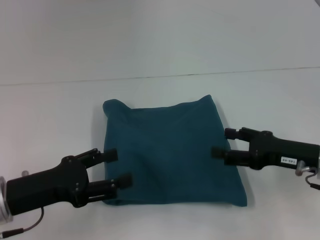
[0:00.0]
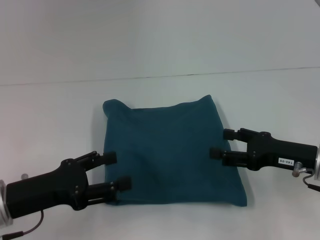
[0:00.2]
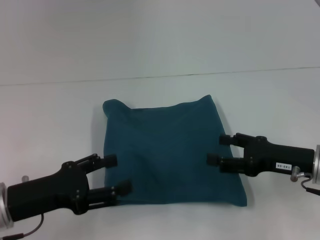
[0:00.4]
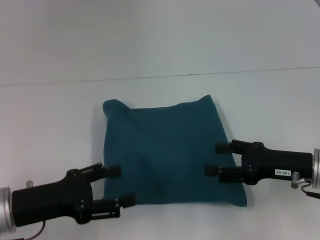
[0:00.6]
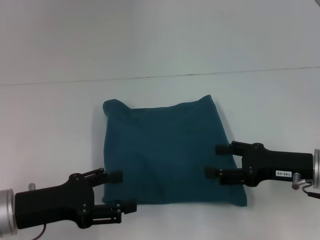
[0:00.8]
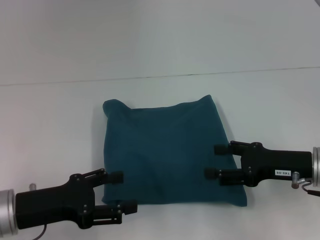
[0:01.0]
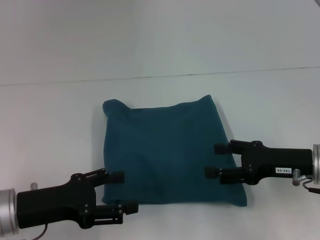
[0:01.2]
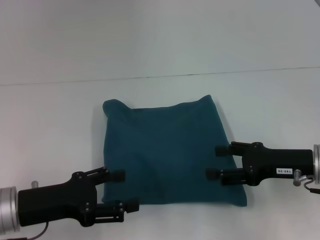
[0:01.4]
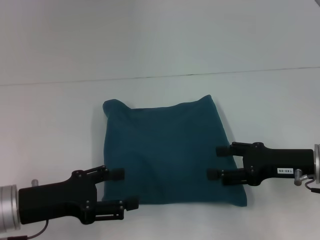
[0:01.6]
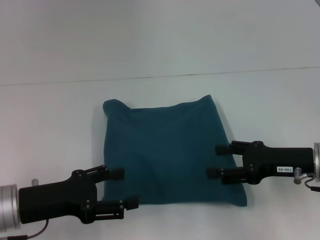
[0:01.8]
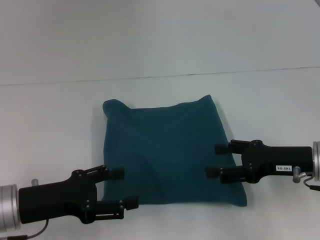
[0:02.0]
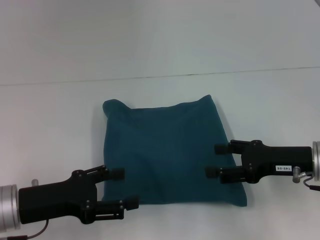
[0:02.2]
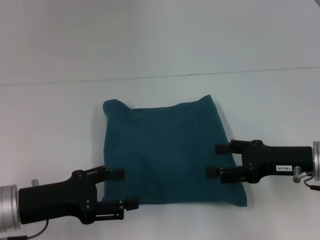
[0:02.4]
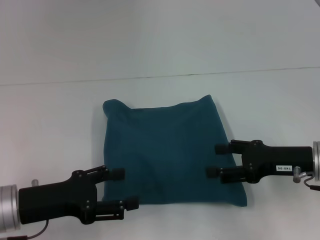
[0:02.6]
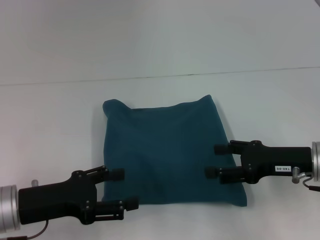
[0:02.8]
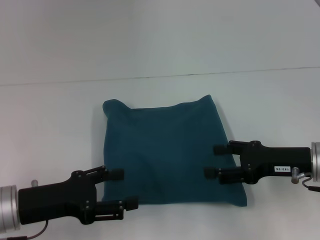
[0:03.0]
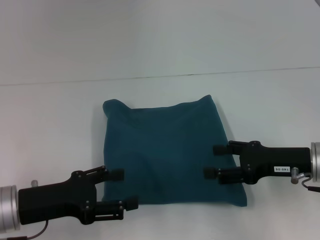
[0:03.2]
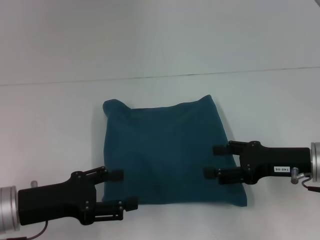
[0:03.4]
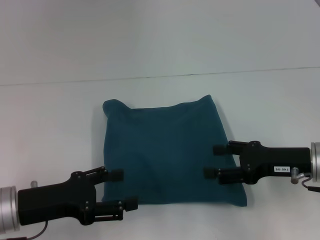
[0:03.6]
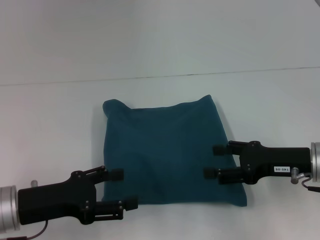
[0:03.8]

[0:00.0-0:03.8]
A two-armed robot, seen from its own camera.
0:00.0 to 0:01.2: The grippers move only a little.
0:01.2 to 0:03.8: Both grippers stay about where they are.

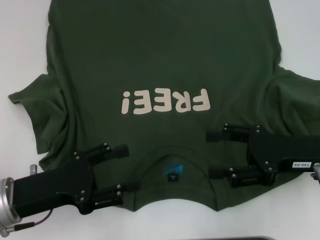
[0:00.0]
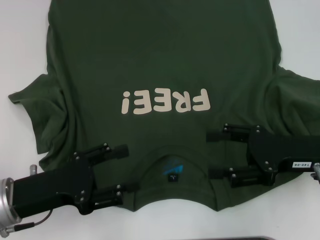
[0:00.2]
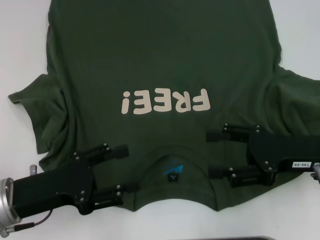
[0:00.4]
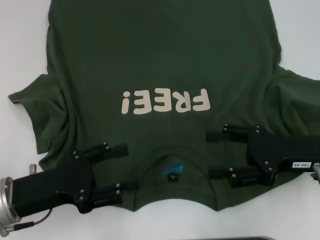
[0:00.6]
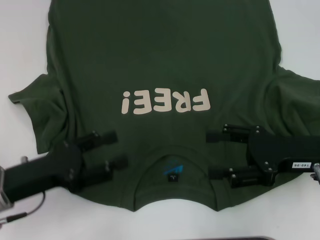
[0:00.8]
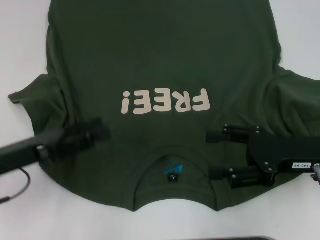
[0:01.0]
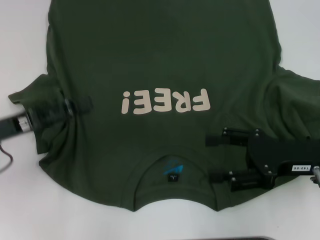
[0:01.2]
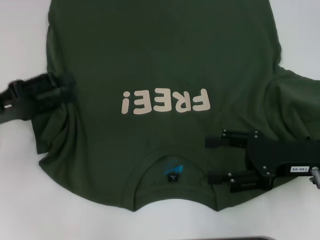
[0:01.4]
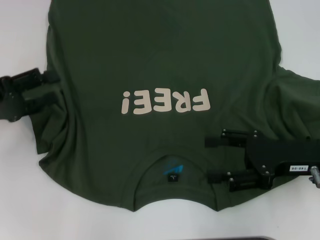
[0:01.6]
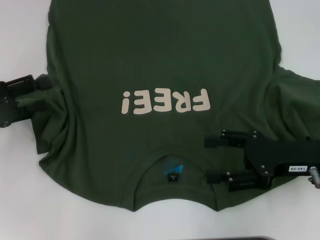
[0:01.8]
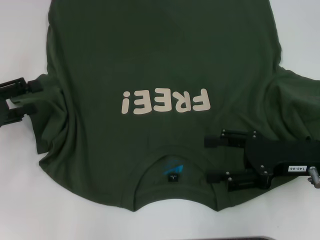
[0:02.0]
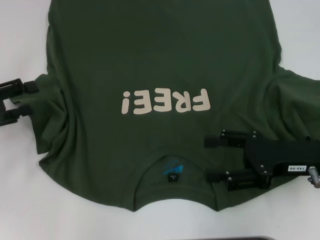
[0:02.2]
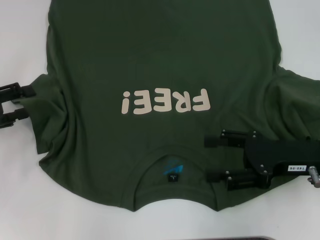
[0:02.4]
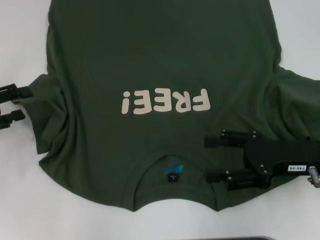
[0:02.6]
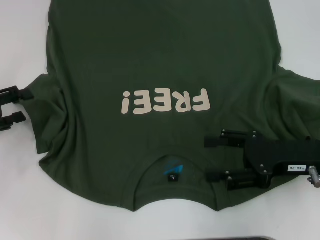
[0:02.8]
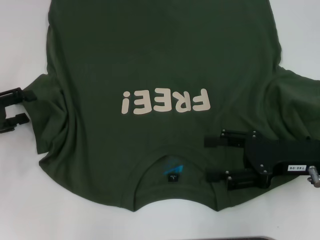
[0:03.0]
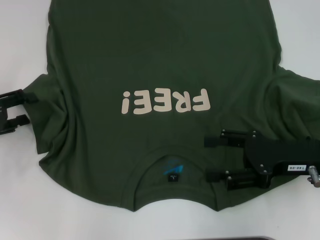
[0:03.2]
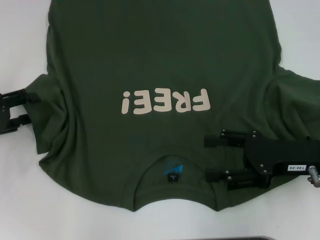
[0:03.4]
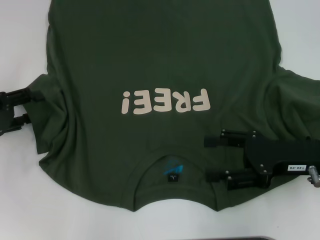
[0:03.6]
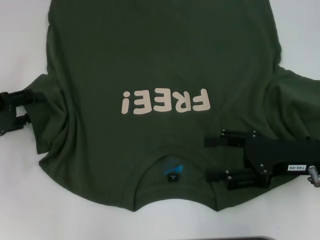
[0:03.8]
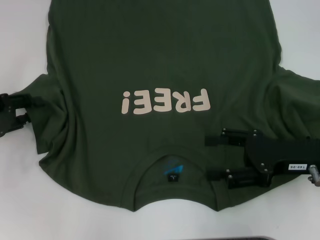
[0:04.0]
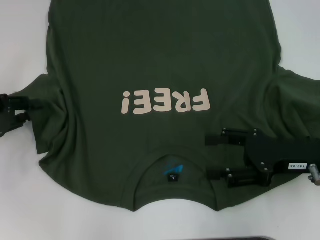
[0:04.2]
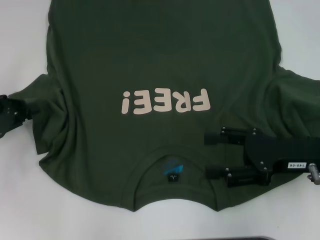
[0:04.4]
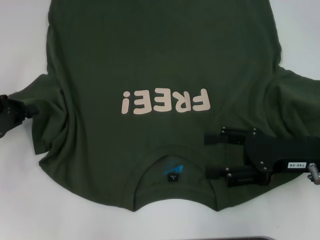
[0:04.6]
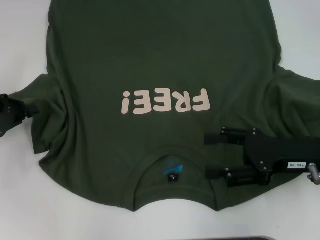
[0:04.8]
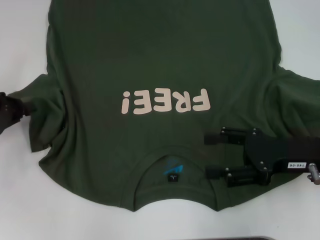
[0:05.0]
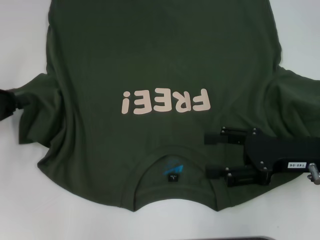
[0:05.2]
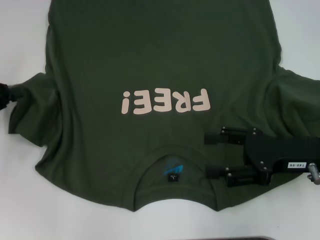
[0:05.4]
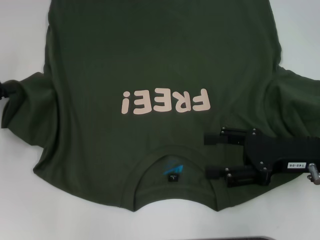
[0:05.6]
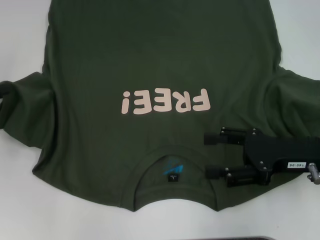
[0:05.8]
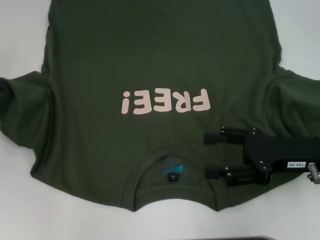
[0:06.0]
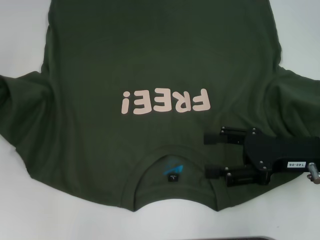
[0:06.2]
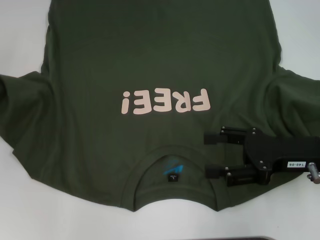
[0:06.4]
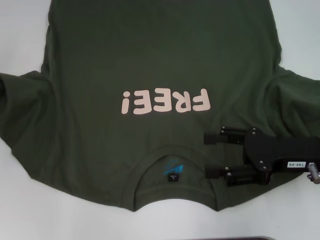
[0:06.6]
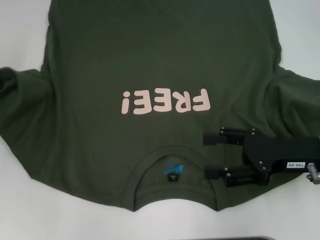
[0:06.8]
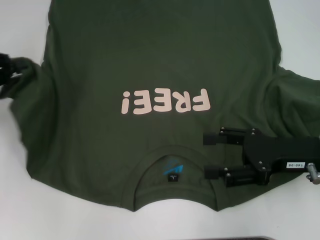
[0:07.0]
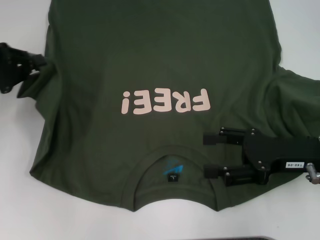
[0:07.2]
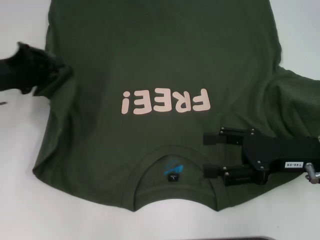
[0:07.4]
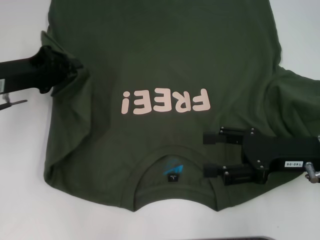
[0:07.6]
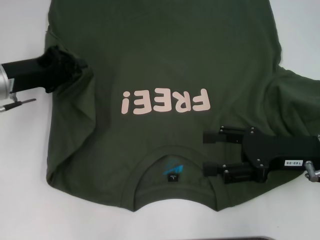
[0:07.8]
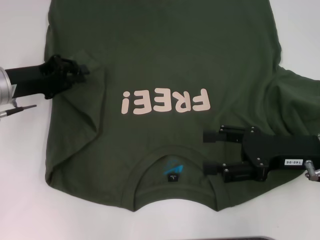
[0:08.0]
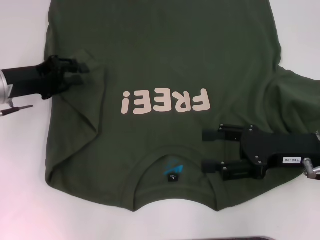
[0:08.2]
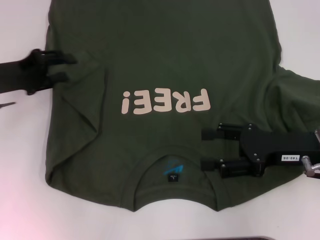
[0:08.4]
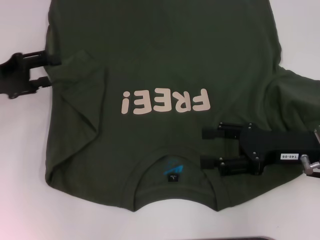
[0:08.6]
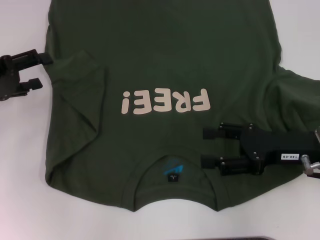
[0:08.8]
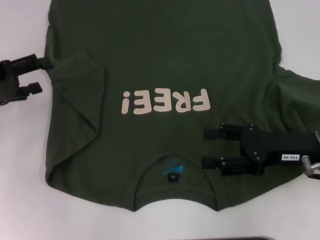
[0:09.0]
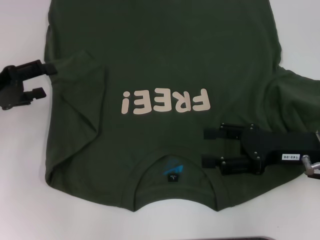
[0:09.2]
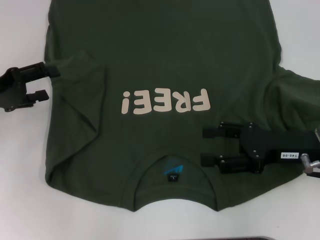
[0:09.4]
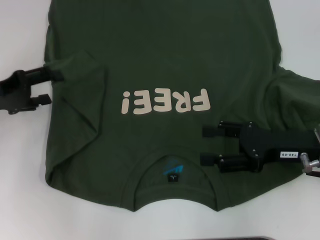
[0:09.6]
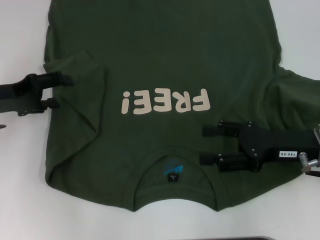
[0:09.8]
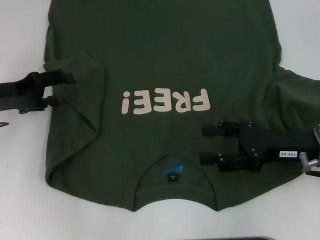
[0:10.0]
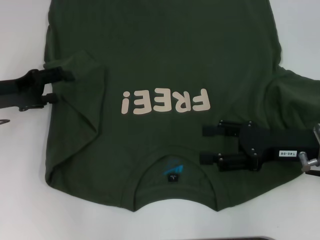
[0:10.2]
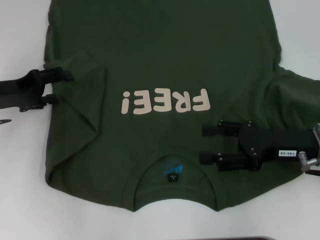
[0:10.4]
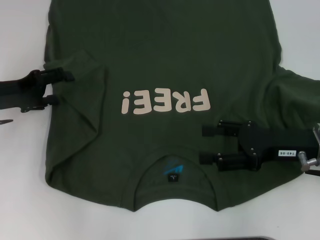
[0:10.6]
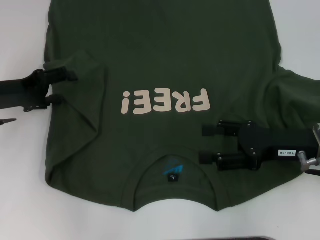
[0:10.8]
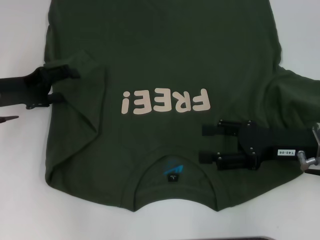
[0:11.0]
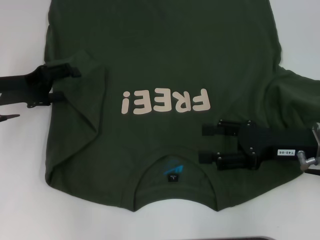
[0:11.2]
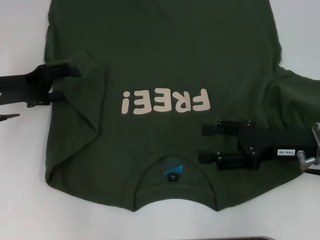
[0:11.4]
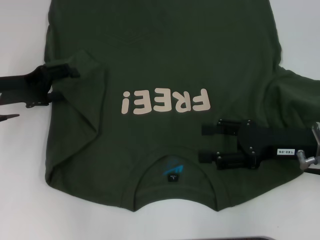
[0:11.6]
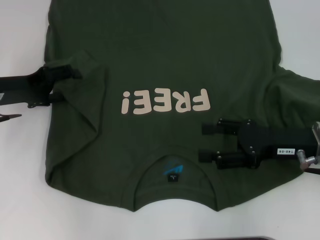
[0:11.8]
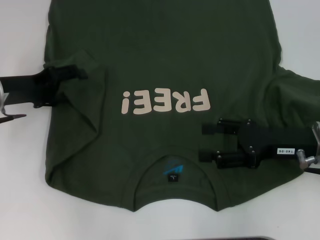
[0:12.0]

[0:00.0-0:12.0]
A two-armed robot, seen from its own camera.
0:00.0 to 0:01.6: The left gripper moves to the left and forward, roughly 10 cm.
0:03.0 to 0:04.4: The left gripper closes up.
0:04.4 to 0:06.0: The left gripper ends up roughly 5 cm from where it was.
0:06.0 to 0:07.6: The left gripper goes some 10 cm to the right.
0:07.6 to 0:09.0: The left gripper travels to the left by some 5 cm, and opens.
0:09.0 to 0:10.4: The grippers move only a little.
0:10.4 to 0:12.0: The grippers make only small movements.

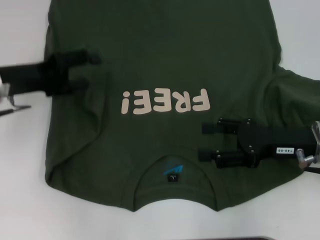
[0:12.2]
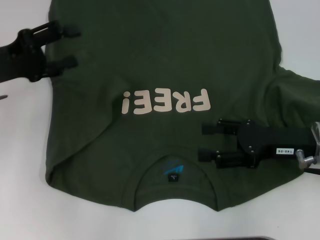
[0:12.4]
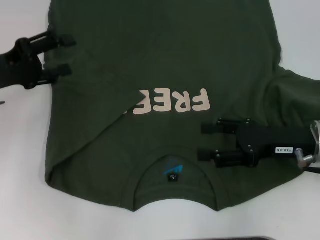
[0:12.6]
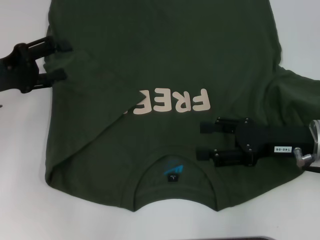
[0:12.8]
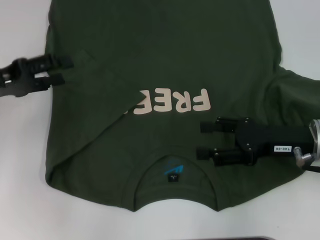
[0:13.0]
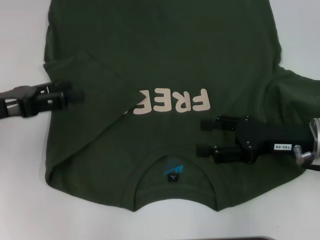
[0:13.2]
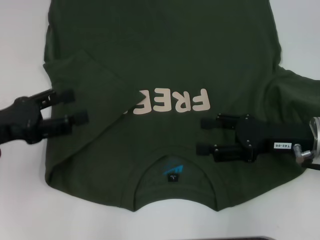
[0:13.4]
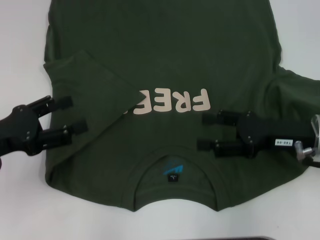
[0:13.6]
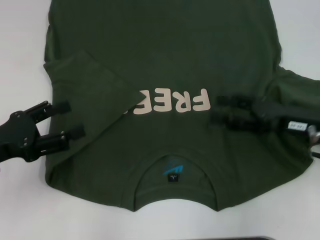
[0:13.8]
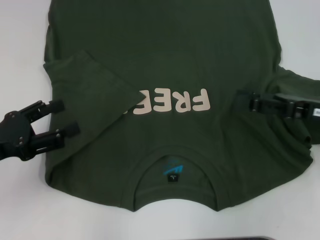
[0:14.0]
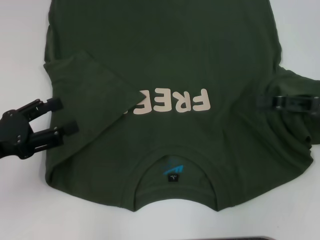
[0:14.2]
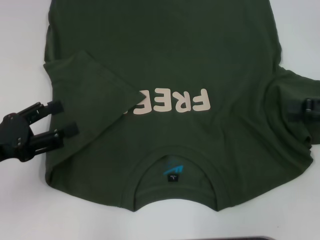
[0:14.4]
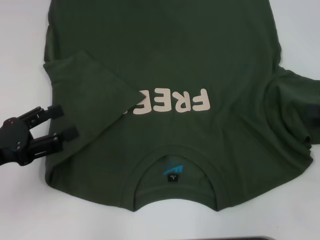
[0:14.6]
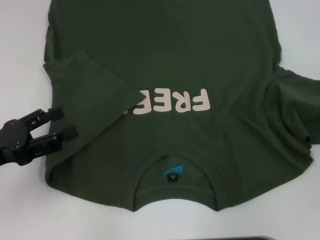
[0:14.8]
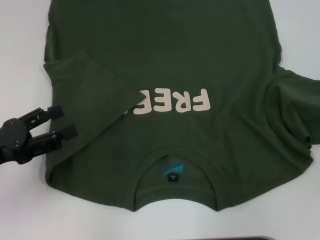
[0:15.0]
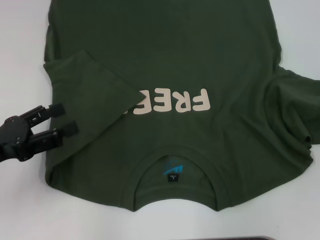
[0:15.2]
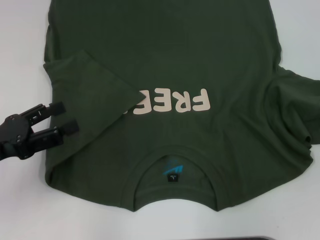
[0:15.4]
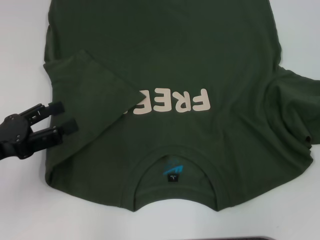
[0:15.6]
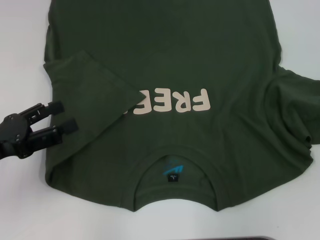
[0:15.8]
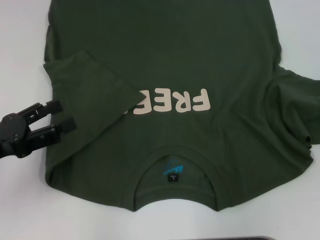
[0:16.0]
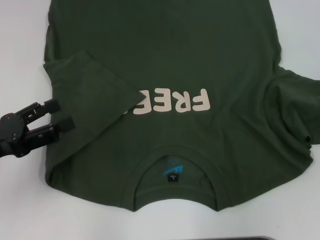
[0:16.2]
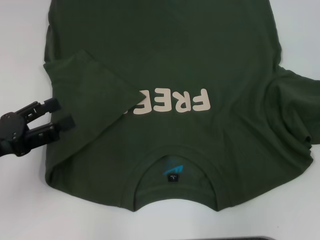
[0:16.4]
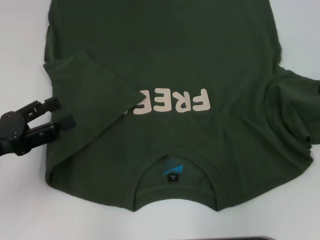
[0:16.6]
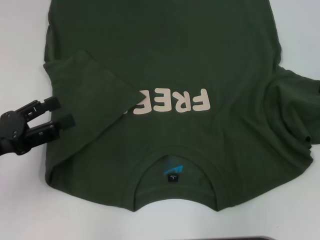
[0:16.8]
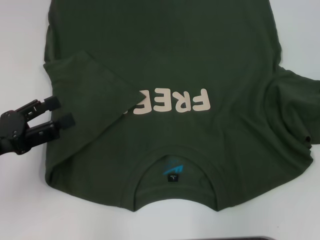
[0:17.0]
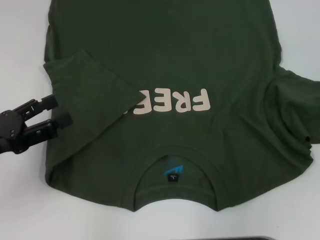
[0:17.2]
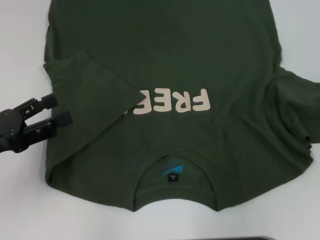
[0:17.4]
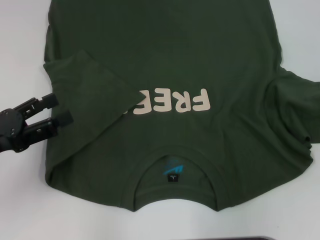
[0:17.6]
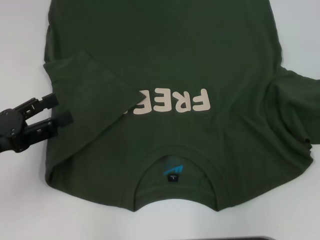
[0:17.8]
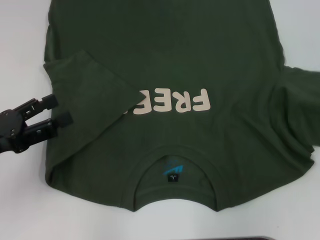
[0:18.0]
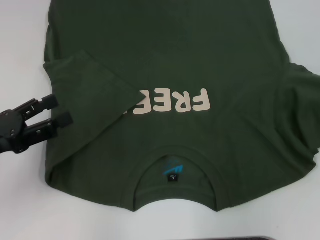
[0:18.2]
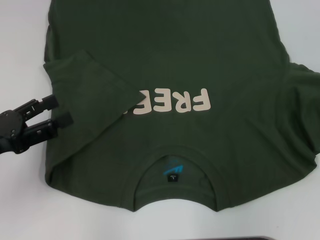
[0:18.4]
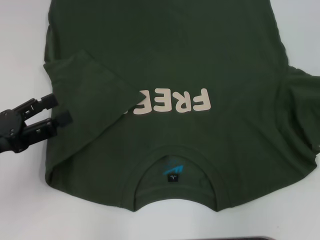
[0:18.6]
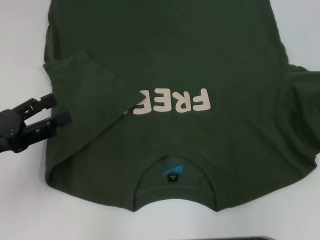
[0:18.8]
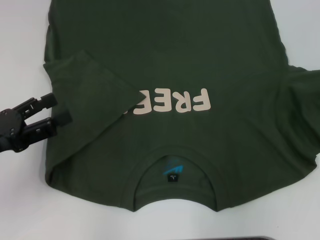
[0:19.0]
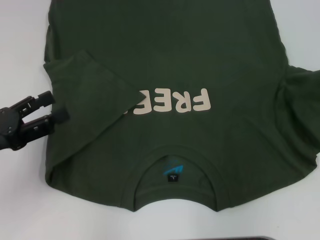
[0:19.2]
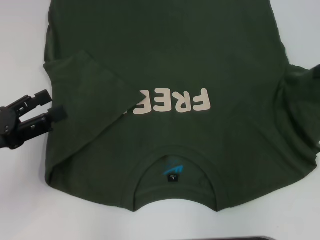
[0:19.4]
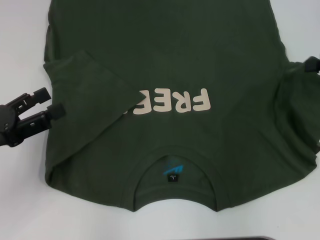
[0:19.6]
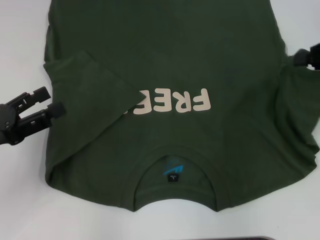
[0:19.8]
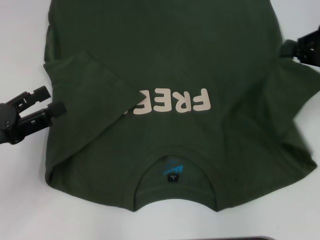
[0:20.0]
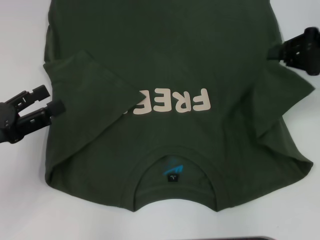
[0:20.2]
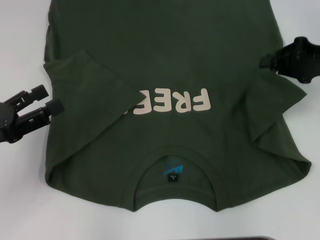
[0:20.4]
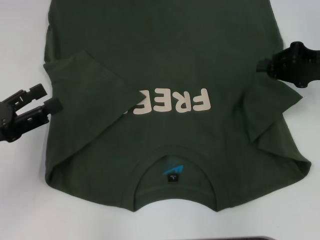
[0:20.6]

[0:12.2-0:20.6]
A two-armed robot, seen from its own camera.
Step, 0:12.2 to 0:14.2: Fold the bottom left sleeve with your left hand.
0:12.2 to 0:13.6: The left gripper heads backward, covering approximately 10 cm.
0:13.6 to 0:15.0: The right gripper goes approximately 15 cm to the right.
0:15.0 to 0:16.4: There are only small adjustments of the grippers.
0:17.8 to 0:19.2: There are only small adjustments of the grippers.
0:19.2 to 0:20.6: The right gripper travels to the left by some 10 cm.
